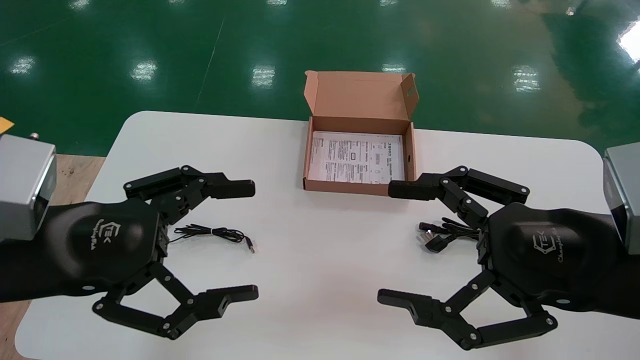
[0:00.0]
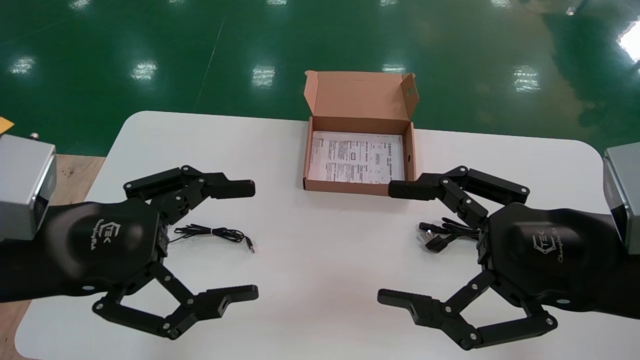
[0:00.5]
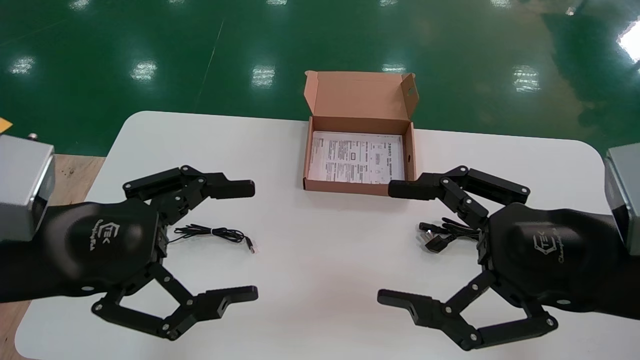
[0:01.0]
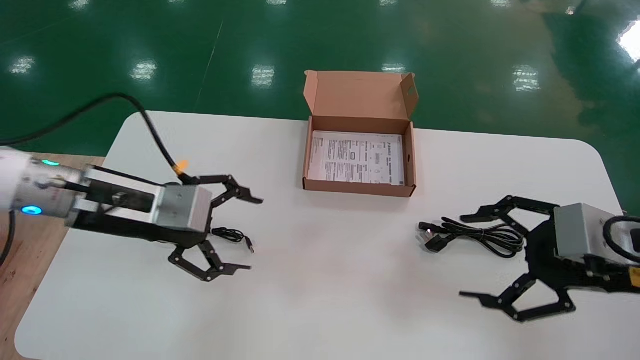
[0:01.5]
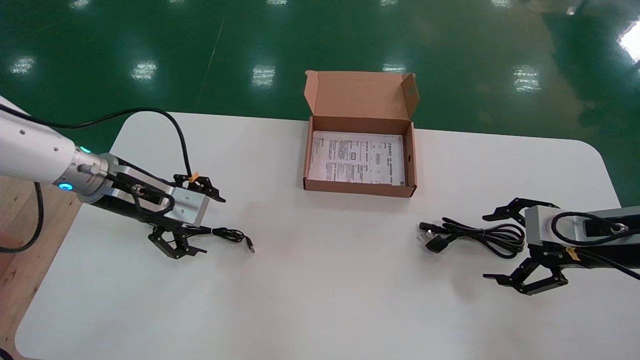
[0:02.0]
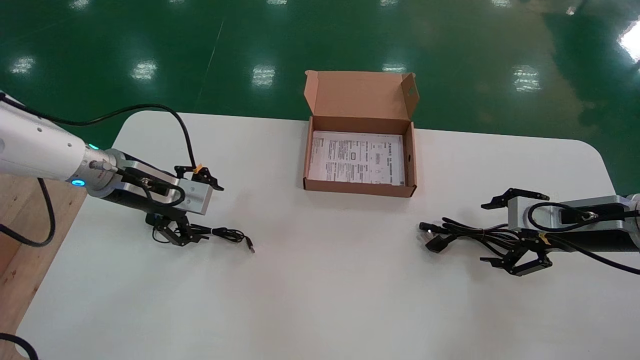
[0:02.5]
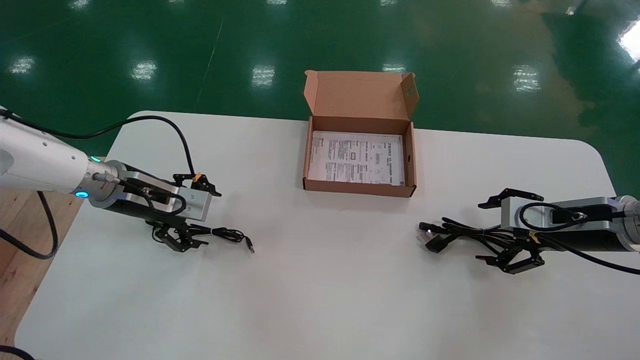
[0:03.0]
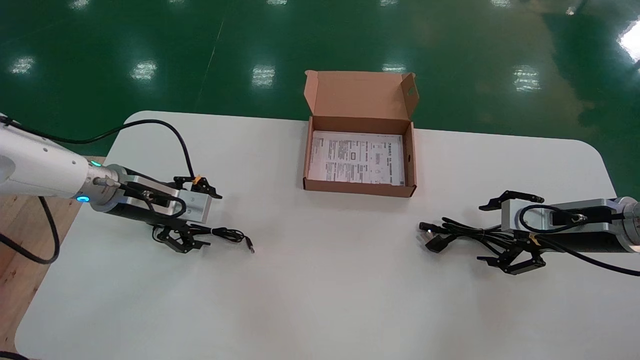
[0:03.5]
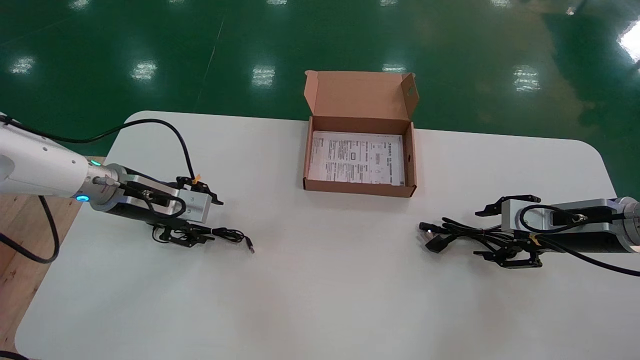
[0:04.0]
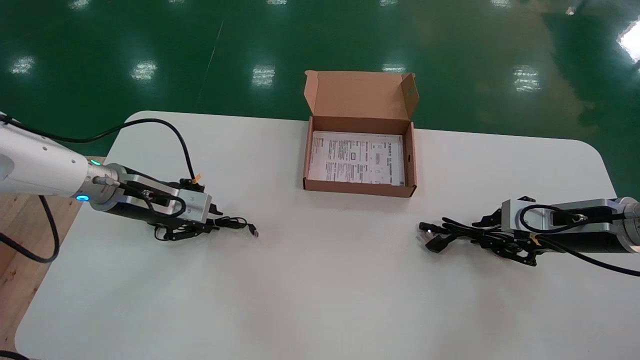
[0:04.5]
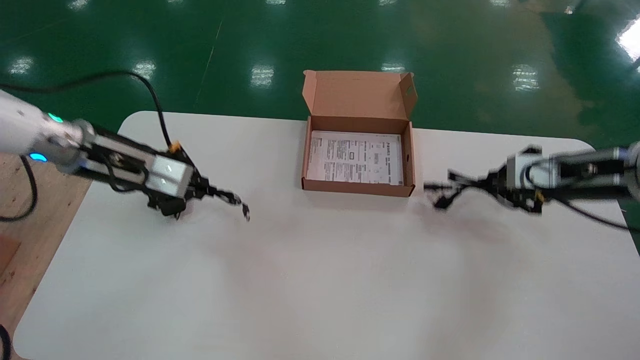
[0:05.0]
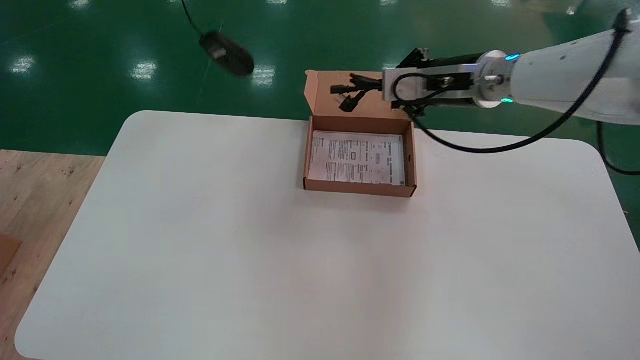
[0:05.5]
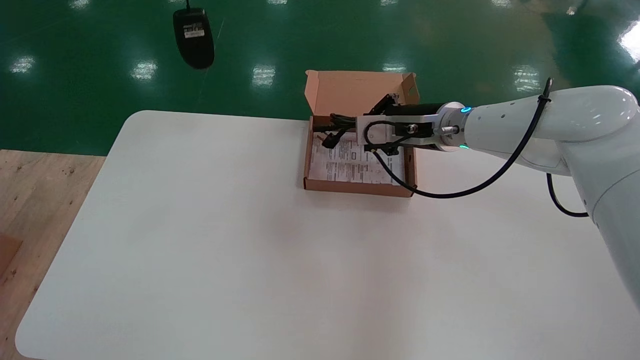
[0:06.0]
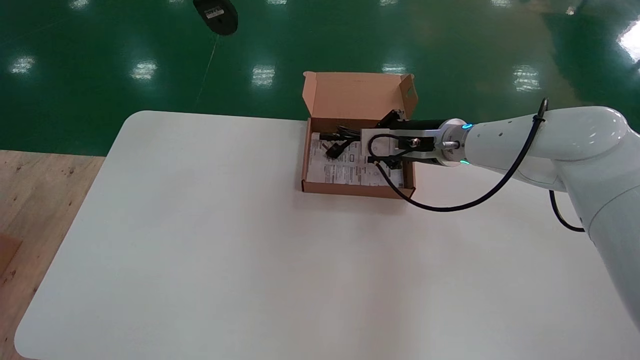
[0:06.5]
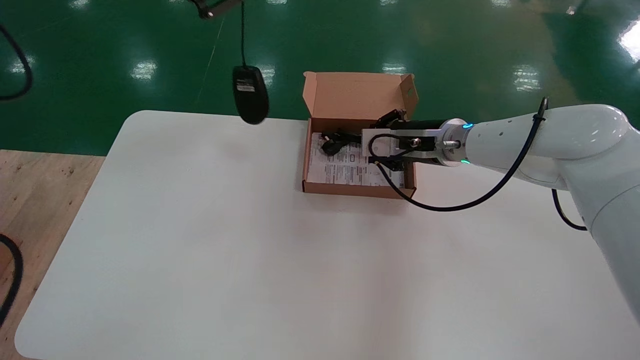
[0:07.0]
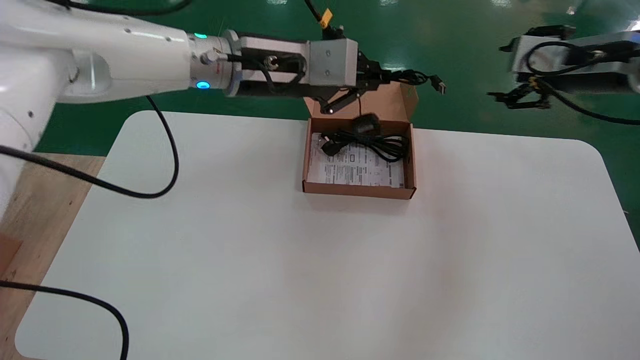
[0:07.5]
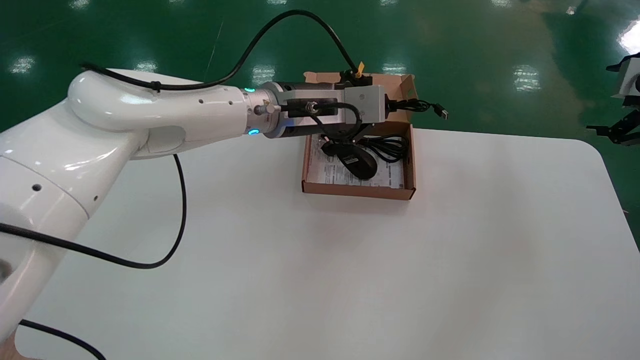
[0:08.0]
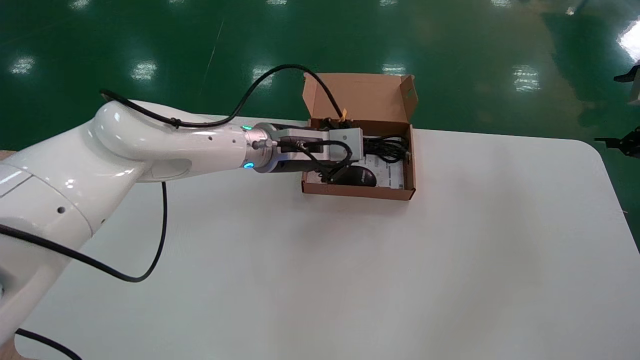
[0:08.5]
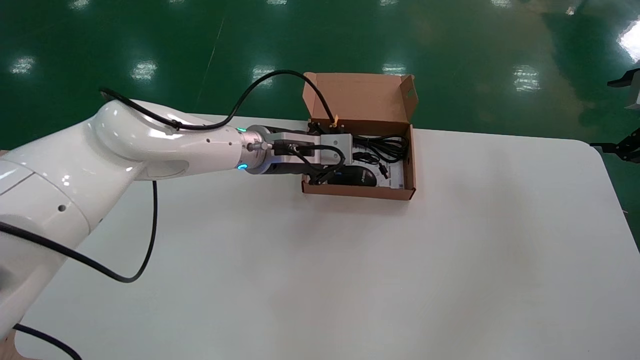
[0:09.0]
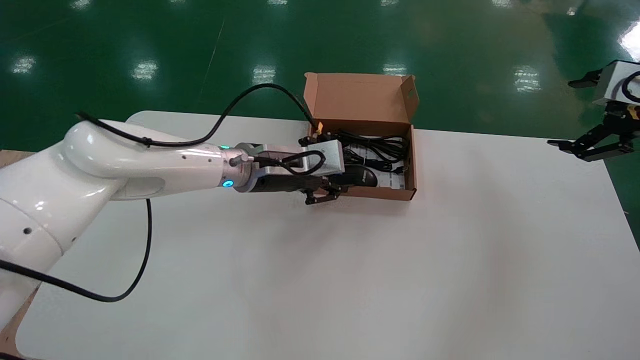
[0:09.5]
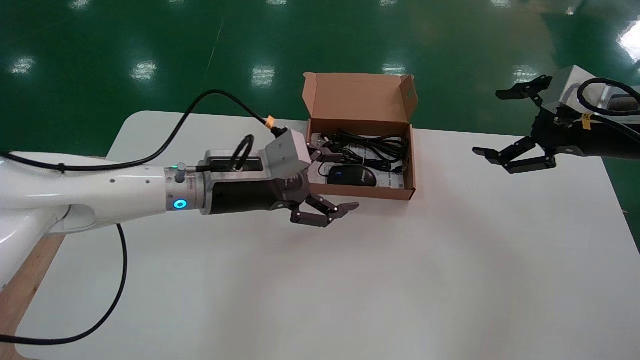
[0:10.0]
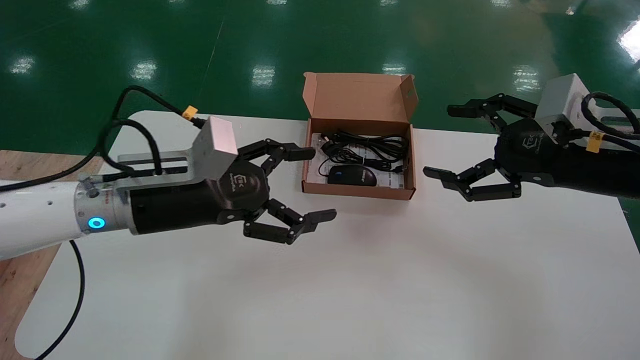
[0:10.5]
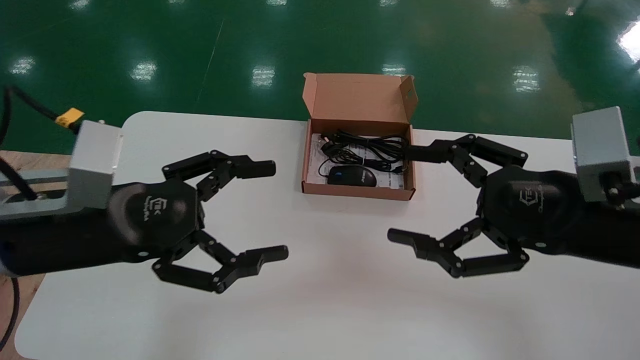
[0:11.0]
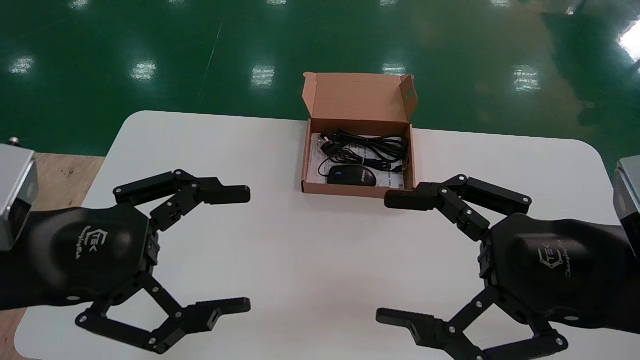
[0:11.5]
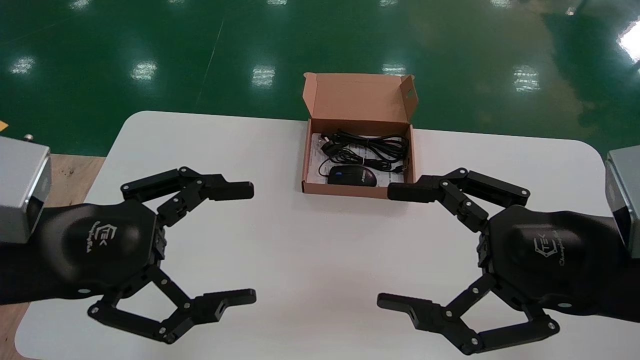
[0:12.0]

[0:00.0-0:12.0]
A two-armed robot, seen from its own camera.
Step, 0:01.5 to 0:04.5: Simultaneously pick up the mouse and power cord from the accessory packaging area.
Step, 0:05.0 to 0:09.5: Place the mouse and power cord into the box.
0:00.0 to 0:02.0: The right gripper shifts about 20 cm forward and to the right; the left gripper goes some 20 cm forward.
0:02.0 to 0:04.0: The right gripper shifts by approximately 5 cm.
0:04.0 to 0:06.0: The left gripper is displaced upward by some 35 cm, and closes its fingers. Meanwhile the right gripper is displaced to the left, upward and forward by approximately 25 cm, and closes up.
0:06.0 to 0:08.0: The left gripper travels to the right, downward and forward by about 35 cm. The right gripper travels to the right and backward by roughly 30 cm, and opens up.
0:08.0 to 0:10.0: The left gripper is displaced downward, to the left and backward by about 15 cm, and opens up; the right gripper heads to the left, covering approximately 10 cm.
0:10.0 to 0:12.0: Both grippers move backward and to the left, approximately 20 cm.

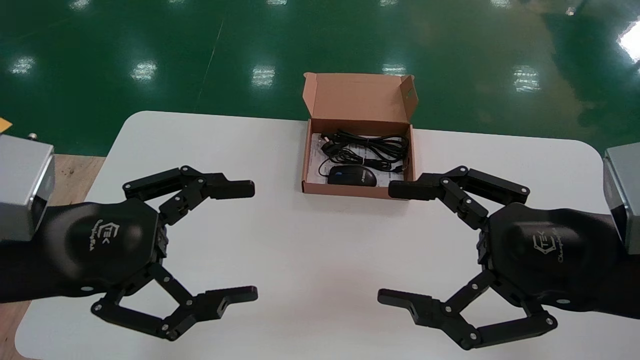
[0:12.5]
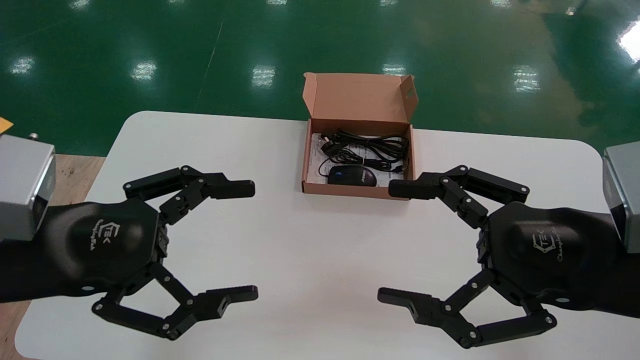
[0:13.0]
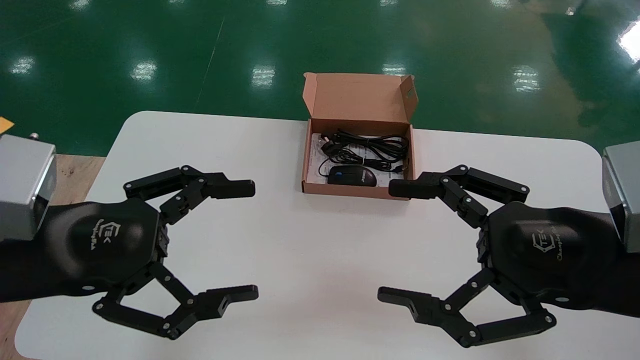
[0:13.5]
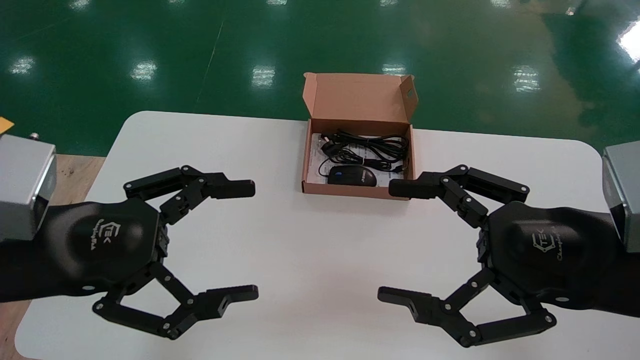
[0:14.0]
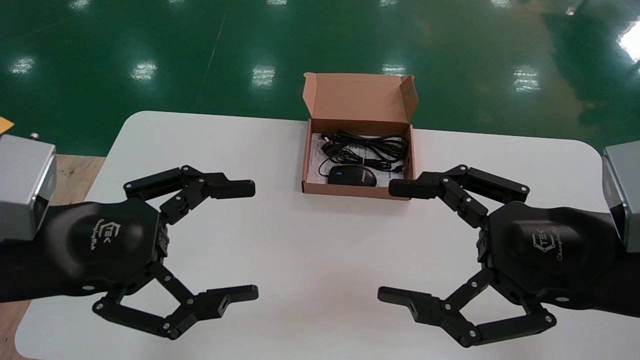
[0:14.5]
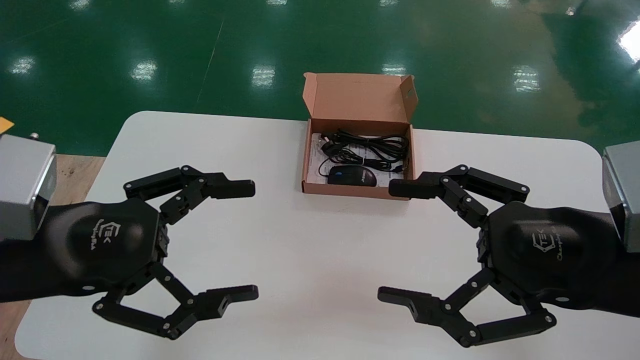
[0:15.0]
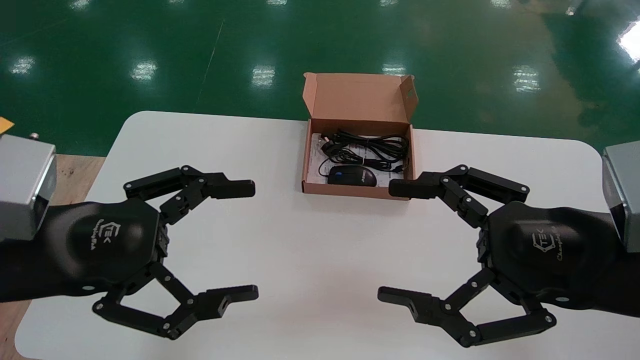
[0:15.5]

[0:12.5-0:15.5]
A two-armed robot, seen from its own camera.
0:12.5 to 0:15.5: Both grippers stay put.
